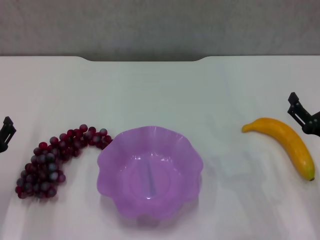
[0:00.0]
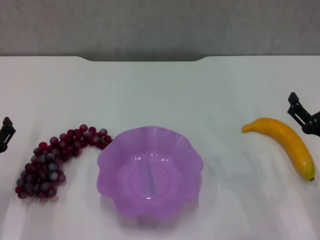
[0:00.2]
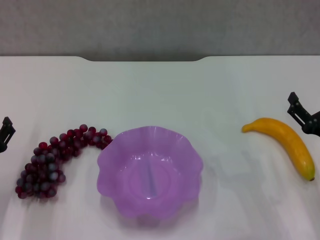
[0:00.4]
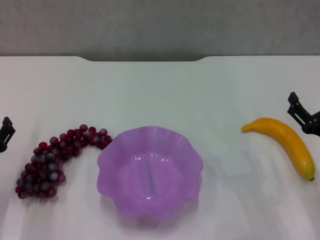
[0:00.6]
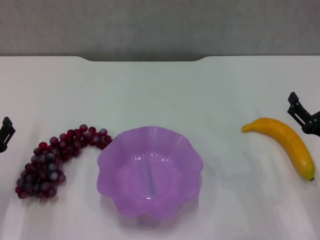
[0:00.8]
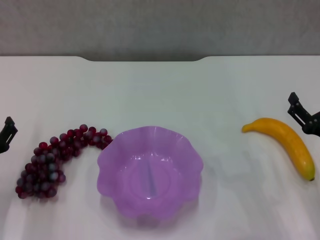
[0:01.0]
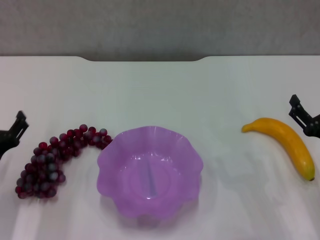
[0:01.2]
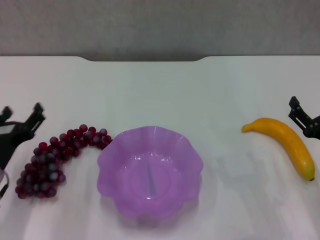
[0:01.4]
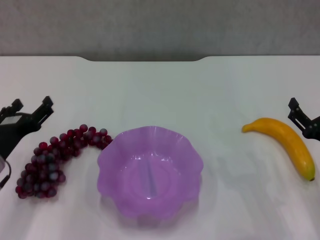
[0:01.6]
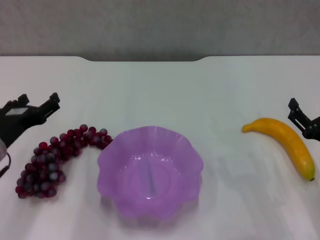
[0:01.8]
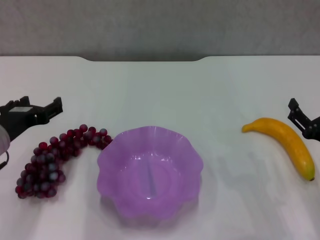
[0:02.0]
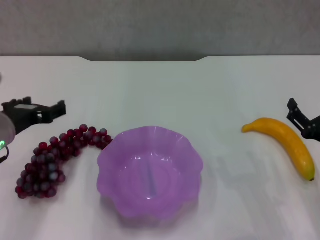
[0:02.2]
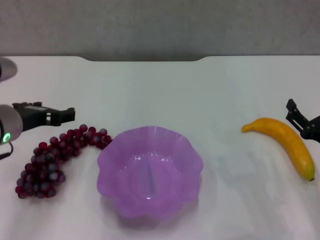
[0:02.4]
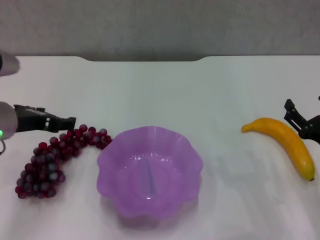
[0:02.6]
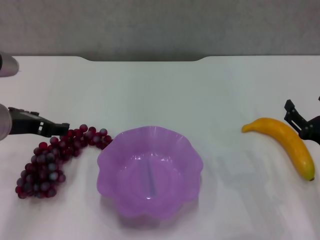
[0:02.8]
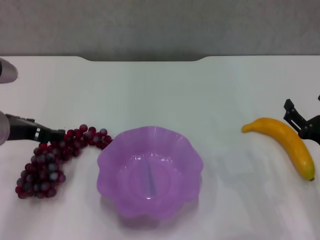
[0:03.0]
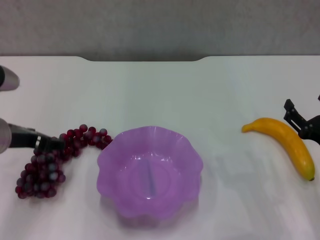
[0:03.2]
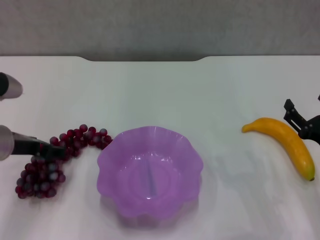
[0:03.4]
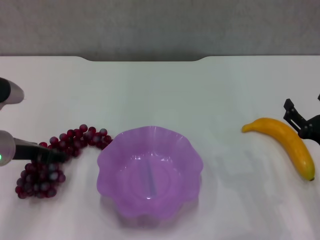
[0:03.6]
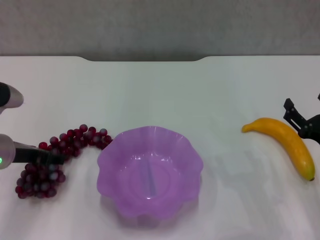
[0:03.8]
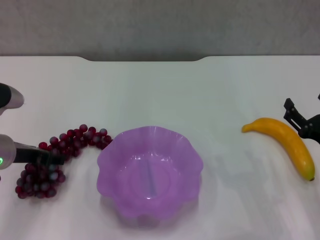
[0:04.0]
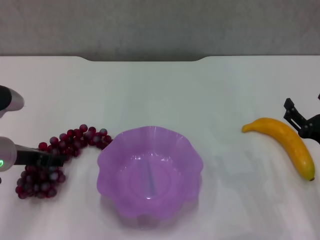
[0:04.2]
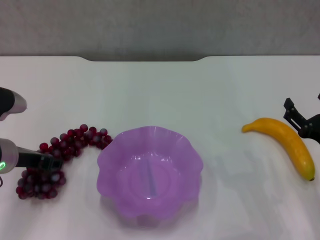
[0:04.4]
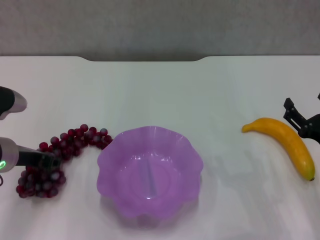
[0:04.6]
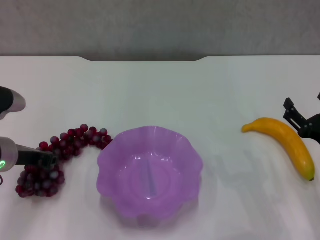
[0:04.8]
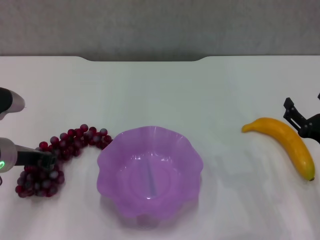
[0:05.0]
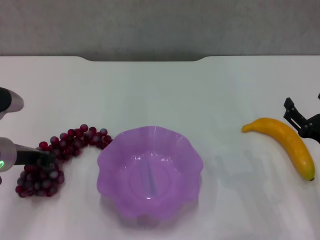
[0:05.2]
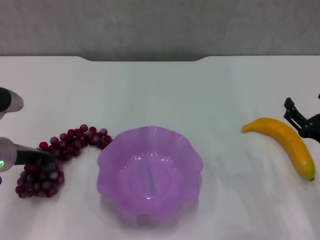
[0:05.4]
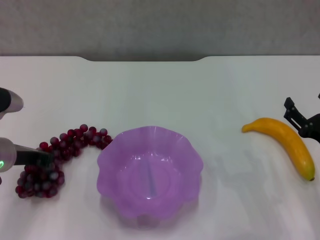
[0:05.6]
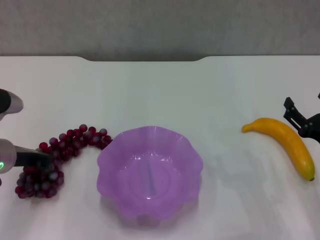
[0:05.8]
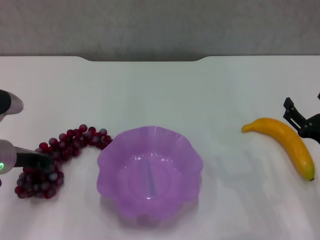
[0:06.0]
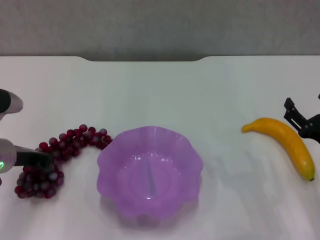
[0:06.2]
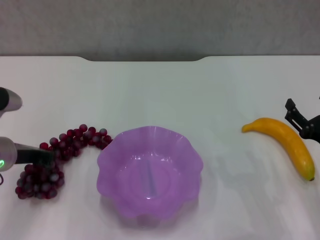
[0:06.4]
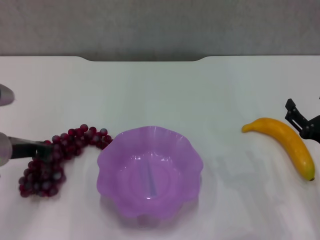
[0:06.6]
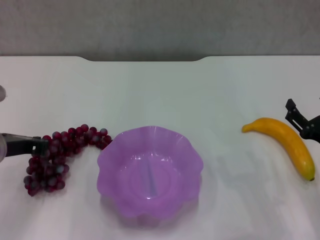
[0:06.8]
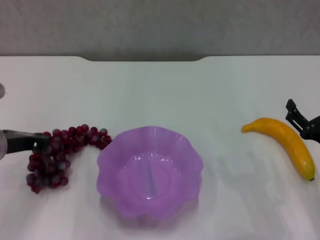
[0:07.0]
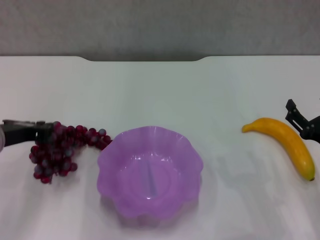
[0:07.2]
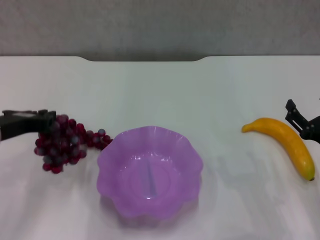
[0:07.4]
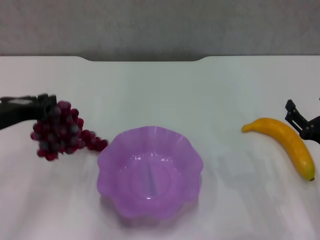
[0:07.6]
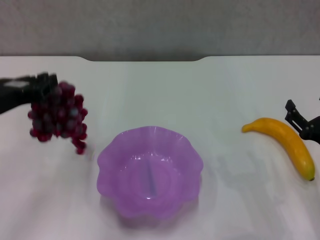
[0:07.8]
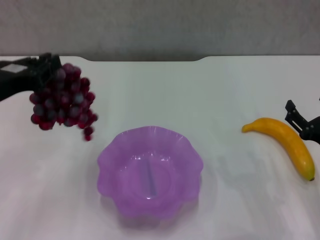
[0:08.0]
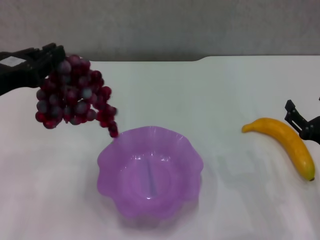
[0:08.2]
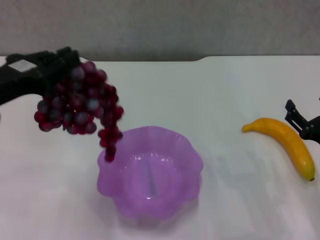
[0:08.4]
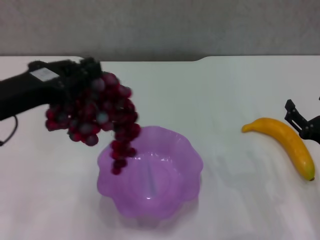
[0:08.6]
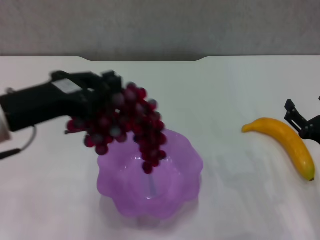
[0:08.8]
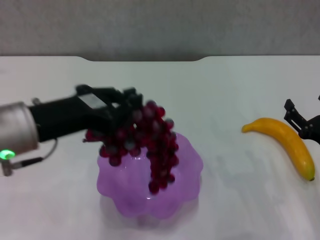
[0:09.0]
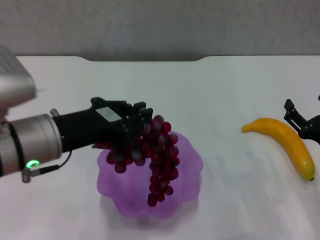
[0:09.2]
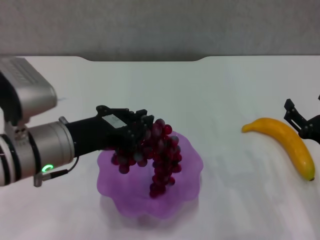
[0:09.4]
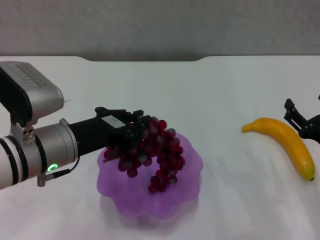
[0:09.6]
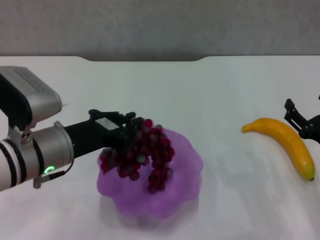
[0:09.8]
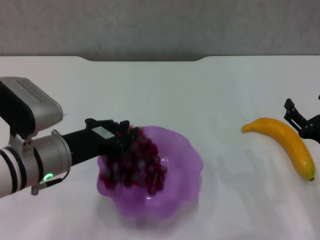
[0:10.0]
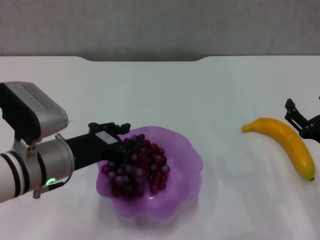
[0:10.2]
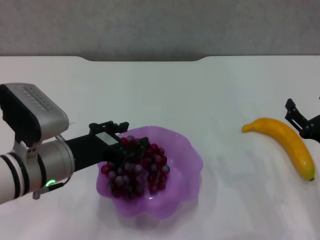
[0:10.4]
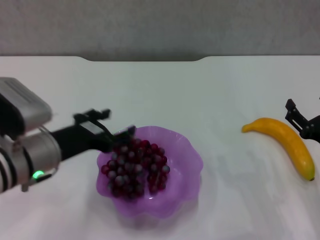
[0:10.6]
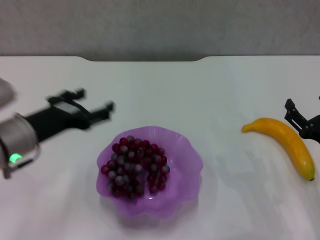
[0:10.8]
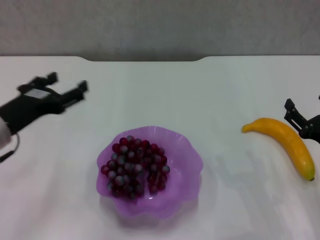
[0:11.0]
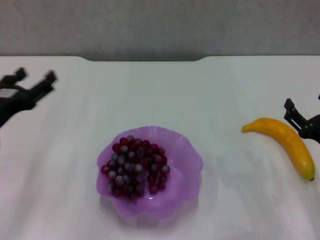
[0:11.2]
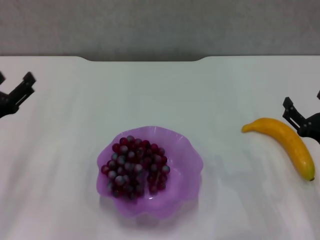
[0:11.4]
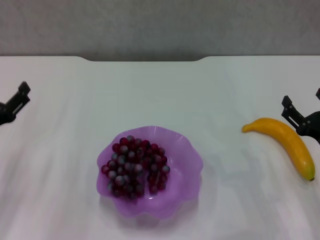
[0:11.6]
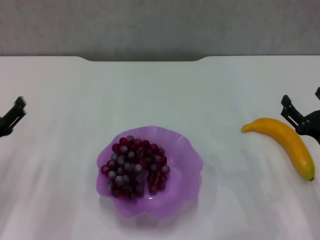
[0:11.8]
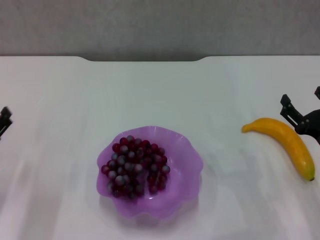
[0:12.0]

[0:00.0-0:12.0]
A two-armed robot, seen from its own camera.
Step, 0:01.0 to 0:06.2: Grasp the grape with left gripper.
Step, 0:06.4 to 0:10.4: Place the grape in the purple plate with left gripper.
0:00.0 to 0:01.6: The left gripper moves about 5 cm.
0:01.6 to 0:03.0: The left gripper travels upward by roughly 10 cm.
0:03.0 to 0:04.4: The left gripper is displaced downward by about 5 cm.
0:04.4 to 0:06.0: The left gripper closes.
0:06.0 to 0:07.6: The left gripper is displaced upward by approximately 5 cm.
0:07.6 to 0:09.0: The left gripper moves to the right, approximately 5 cm.
0:09.0 to 0:10.4: The left gripper is displaced downward by roughly 10 cm, and opens its fingers.
0:10.4 to 0:12.0: The left gripper moves to the left and downward, some 15 cm, and opens its fingers.

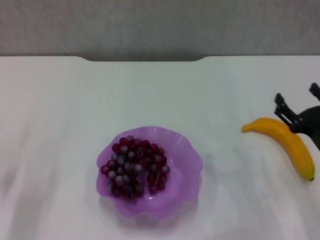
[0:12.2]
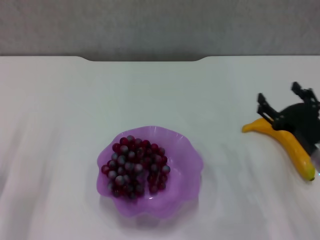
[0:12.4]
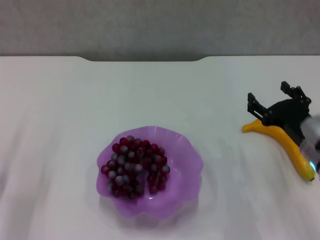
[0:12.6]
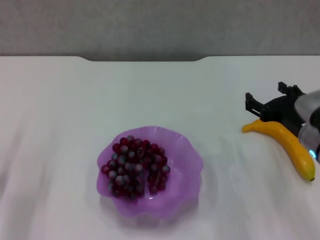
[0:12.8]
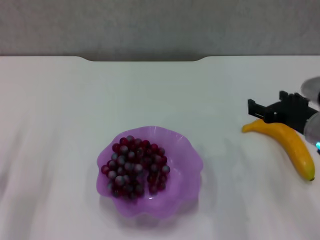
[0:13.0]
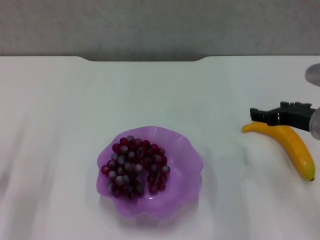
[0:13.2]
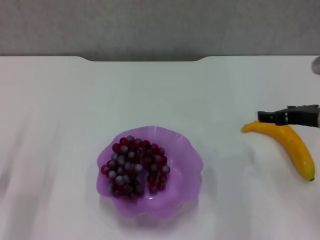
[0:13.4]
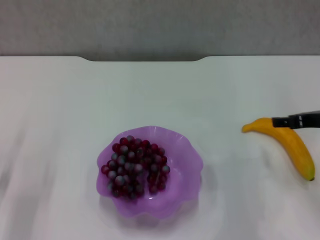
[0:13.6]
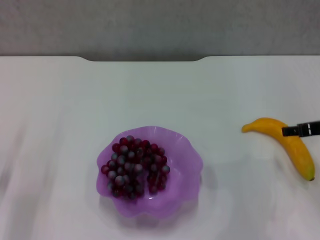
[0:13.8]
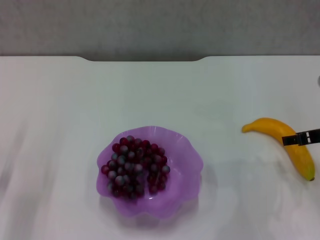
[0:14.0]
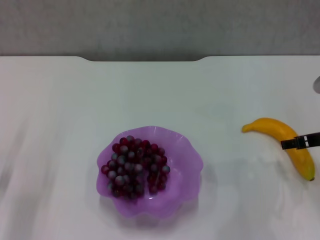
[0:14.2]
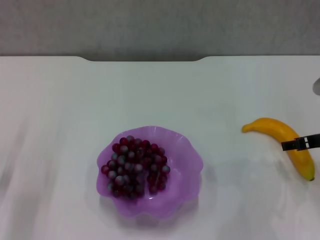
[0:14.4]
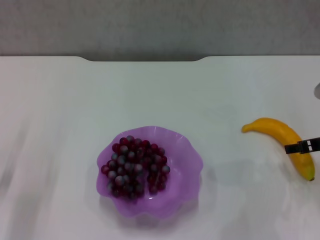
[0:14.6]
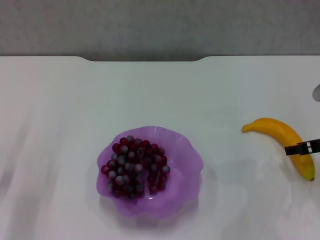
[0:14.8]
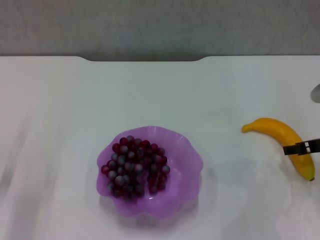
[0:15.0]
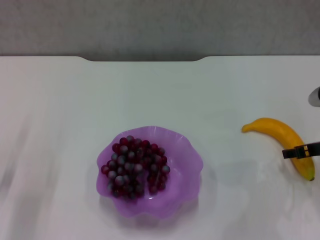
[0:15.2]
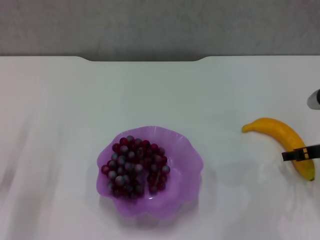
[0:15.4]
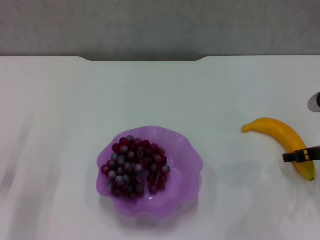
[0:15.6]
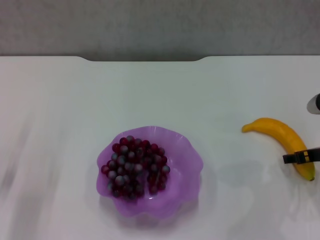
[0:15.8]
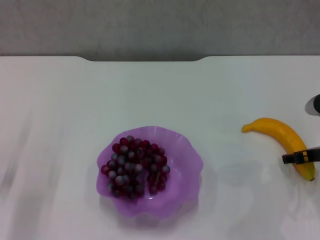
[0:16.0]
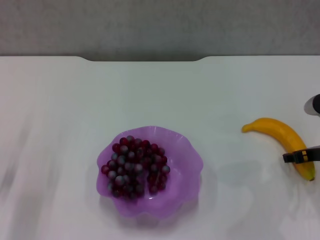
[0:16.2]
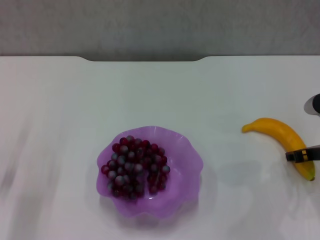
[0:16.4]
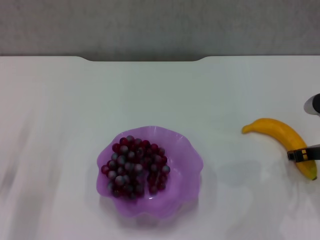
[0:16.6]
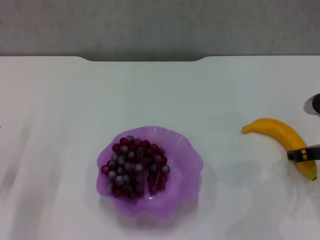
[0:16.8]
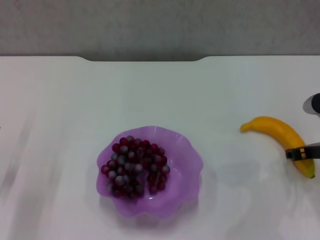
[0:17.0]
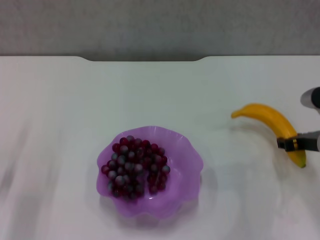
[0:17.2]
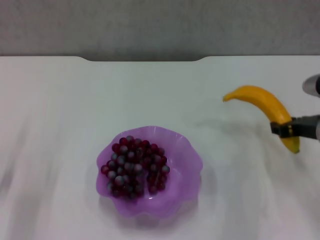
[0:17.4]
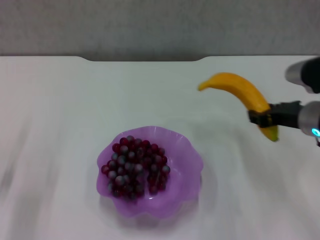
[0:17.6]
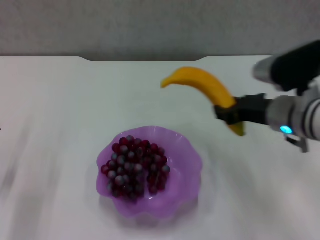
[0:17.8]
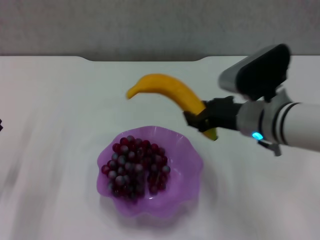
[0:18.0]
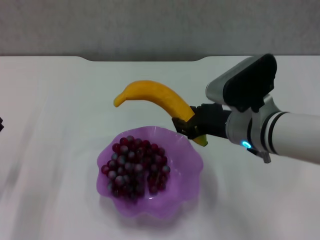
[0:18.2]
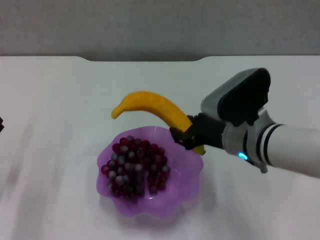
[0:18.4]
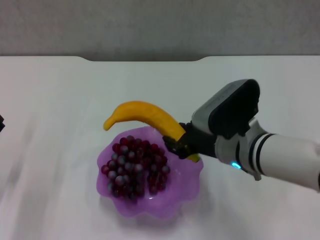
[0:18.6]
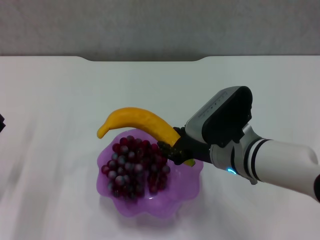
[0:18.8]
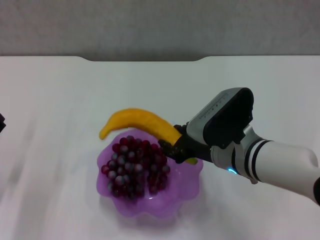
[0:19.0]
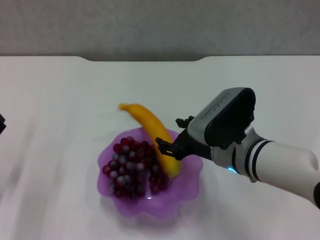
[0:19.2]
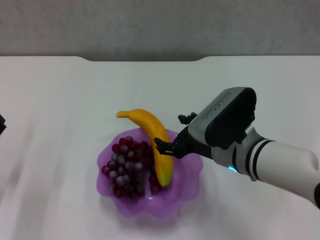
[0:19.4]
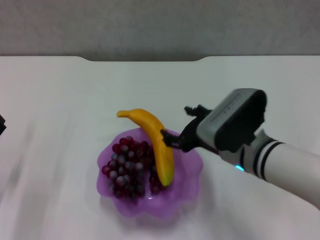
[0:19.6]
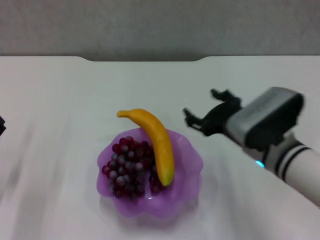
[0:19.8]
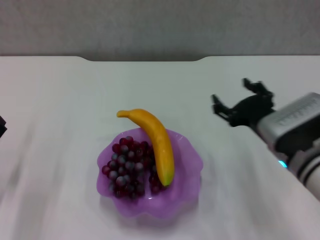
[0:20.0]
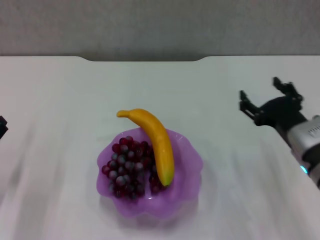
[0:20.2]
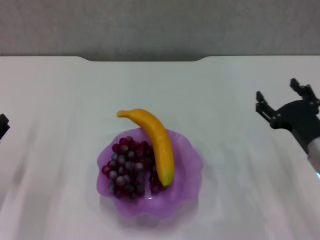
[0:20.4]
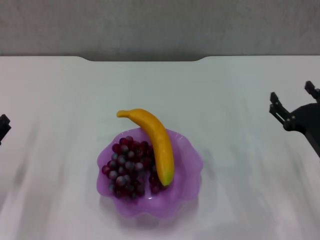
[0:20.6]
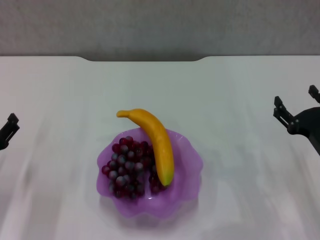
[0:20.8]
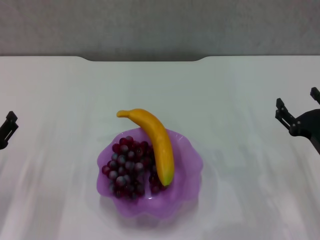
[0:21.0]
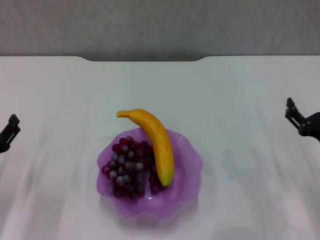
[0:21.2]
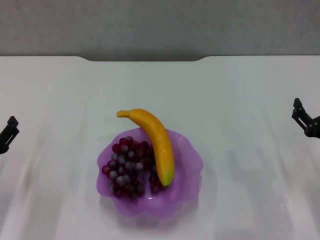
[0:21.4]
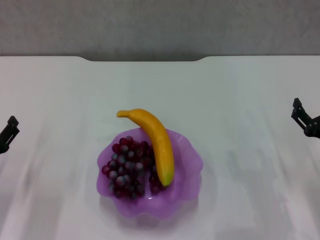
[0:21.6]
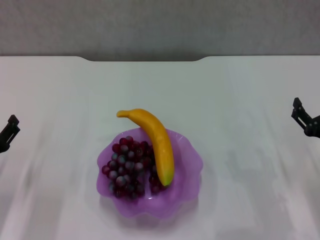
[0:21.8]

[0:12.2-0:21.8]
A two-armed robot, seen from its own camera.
Step, 0:12.2 to 0:16.8: Grasp the banana with right gripper.
Step, 0:17.0 to 0:19.6: Place the banana in the purple plate with right gripper.
0:12.2 to 0:13.8: The right gripper shifts about 10 cm upward and forward.
0:13.8 to 0:15.4: The right gripper travels downward by some 5 cm.
0:15.4 to 0:17.0: The right gripper closes up.
0:17.0 to 0:18.6: The right gripper heads to the left, covering about 20 cm.
0:18.6 to 0:20.2: The right gripper travels to the right by approximately 10 cm, and opens up.
0:20.2 to 0:21.8: The right gripper travels to the right by some 5 cm.
